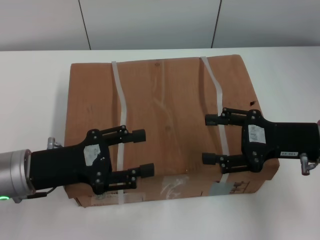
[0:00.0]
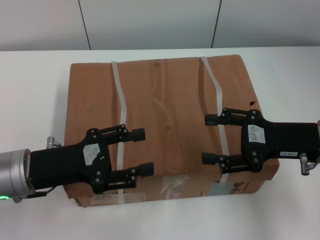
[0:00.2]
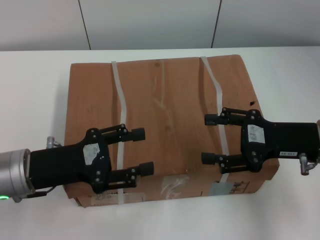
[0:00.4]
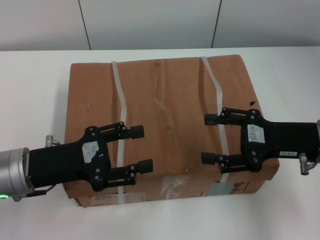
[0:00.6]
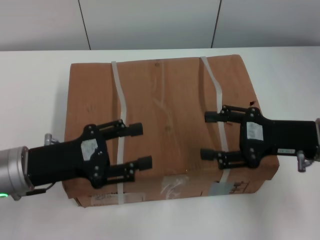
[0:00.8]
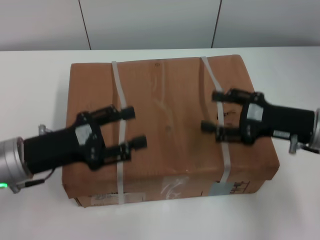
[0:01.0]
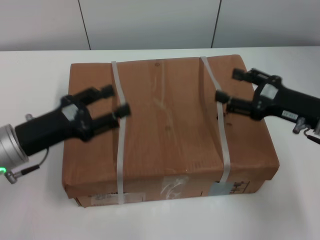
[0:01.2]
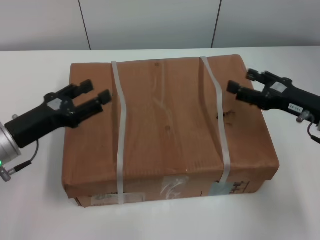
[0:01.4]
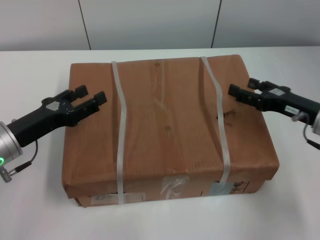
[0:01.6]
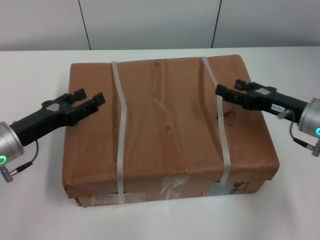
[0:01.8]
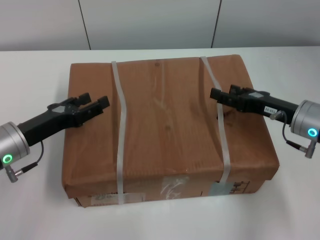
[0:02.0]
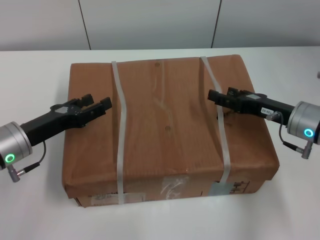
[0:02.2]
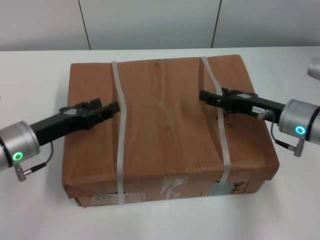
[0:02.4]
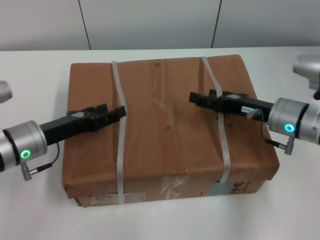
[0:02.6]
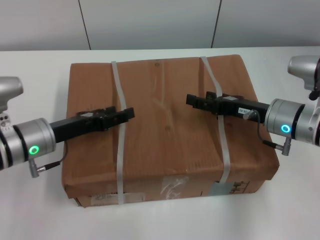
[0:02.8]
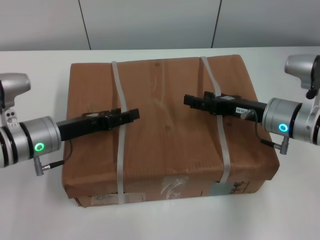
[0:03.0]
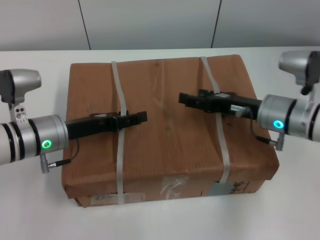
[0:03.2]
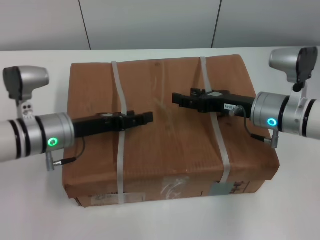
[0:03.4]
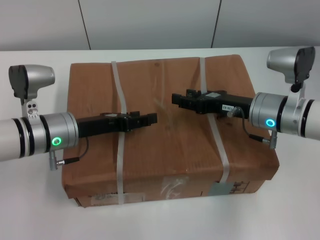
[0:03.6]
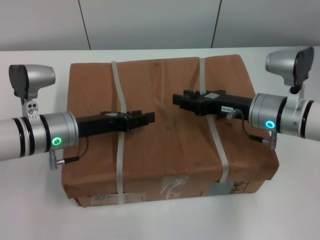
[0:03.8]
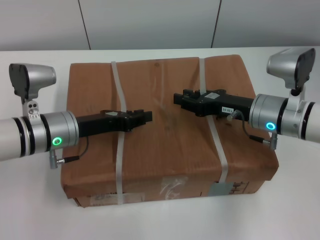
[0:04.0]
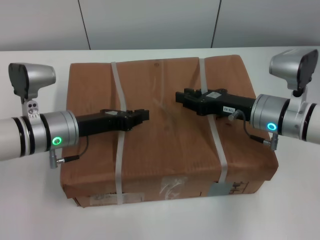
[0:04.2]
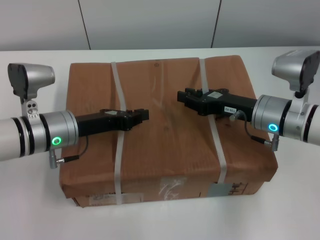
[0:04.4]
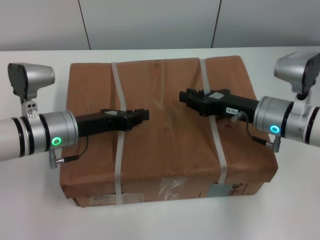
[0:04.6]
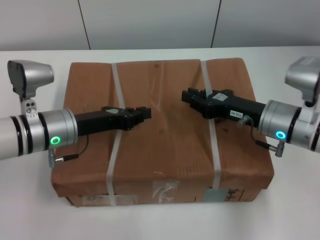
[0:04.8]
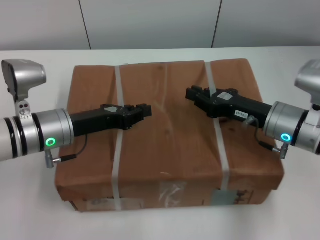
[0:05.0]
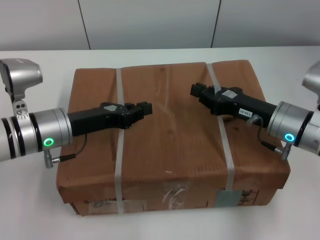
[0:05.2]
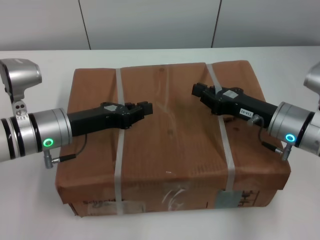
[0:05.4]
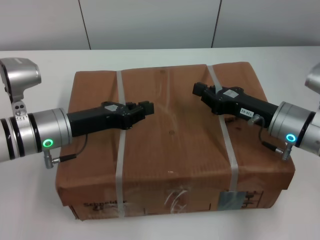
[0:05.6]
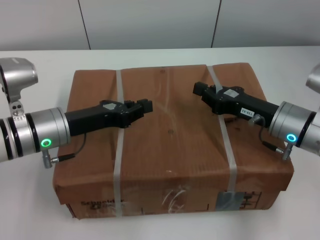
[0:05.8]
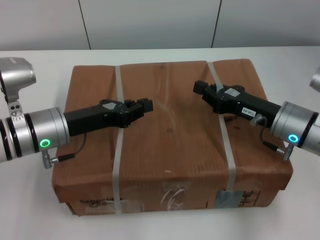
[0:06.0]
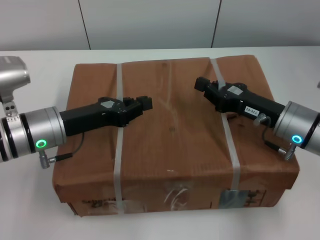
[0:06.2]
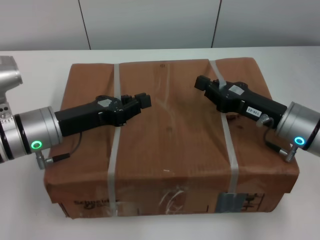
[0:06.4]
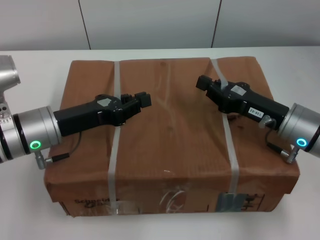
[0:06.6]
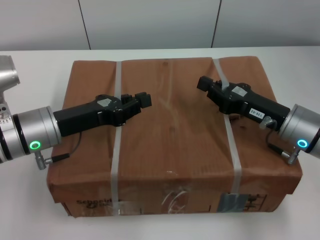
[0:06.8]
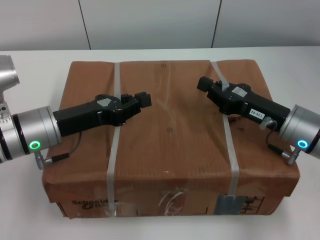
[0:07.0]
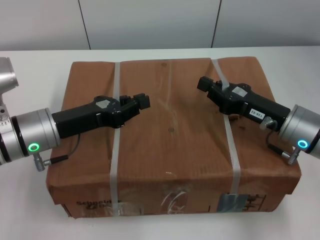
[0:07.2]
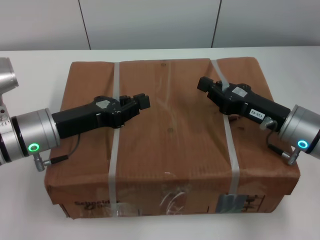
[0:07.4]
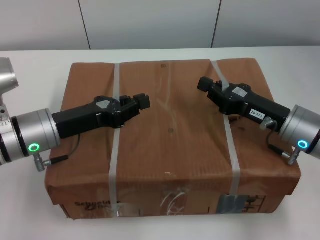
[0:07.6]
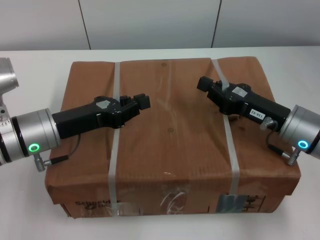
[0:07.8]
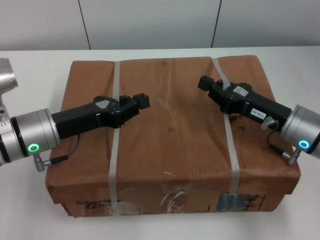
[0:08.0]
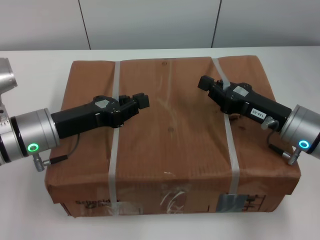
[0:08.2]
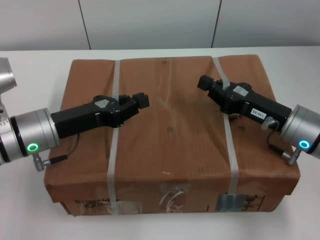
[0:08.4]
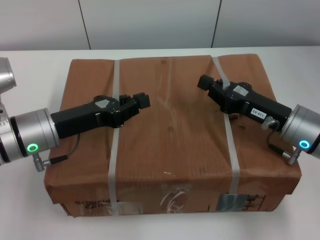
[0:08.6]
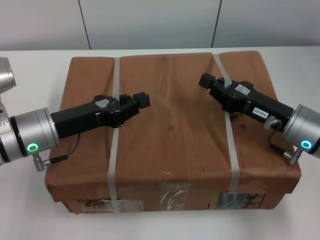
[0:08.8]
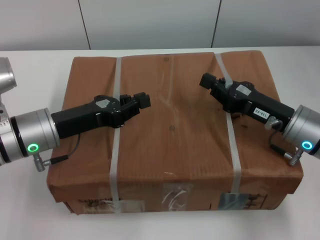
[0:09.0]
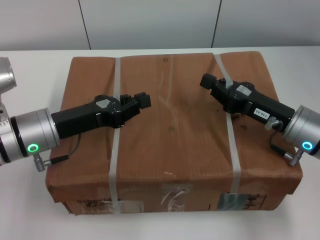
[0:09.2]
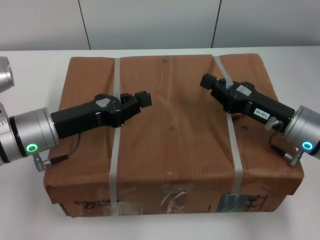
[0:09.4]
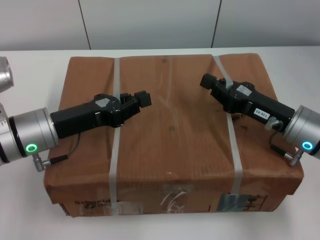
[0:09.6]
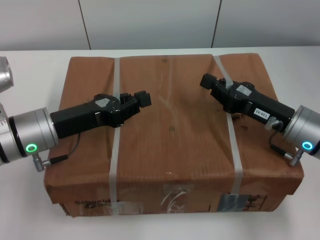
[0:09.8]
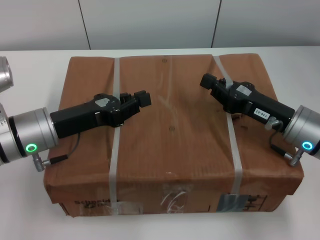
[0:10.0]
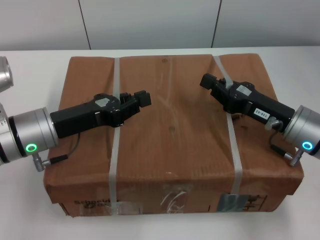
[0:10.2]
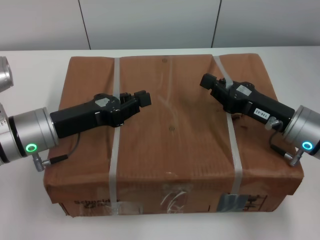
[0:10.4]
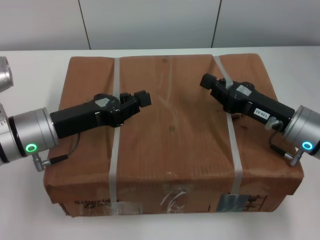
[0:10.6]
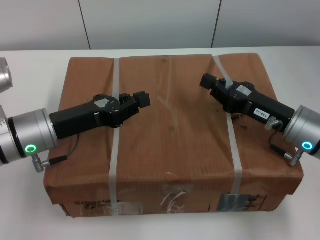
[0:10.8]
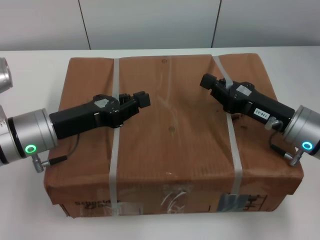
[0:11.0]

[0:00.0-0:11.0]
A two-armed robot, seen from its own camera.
Task of the whole recording: pick up the box from the table with both arms.
Step, 0:00.0 to 0:04.6: Grasp the bandage with left gripper.
Step, 0:00.0 to 0:04.6: Grasp the bandage with right gripper.
Step, 0:04.8 to 0:06.6: Lift the box with left gripper.
Step, 0:04.8 to 0:06.6: Lift the box with right gripper.
0:00.0 to 0:01.6: The left gripper changes place by roughly 5 cm. Meanwhile the right gripper moves roughly 5 cm.
0:01.6 to 0:03.2: The right gripper shifts approximately 10 cm to the left; the left gripper travels to the right by about 5 cm.
0:03.2 to 0:04.8: The right gripper closes up. The left gripper closes up.
0:06.2 to 0:07.8: Both grippers stay put.
0:07.8 to 0:11.0: The two grippers keep their place.
